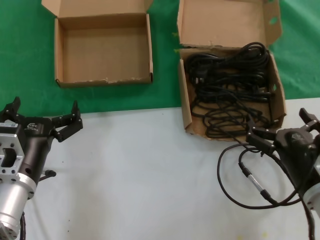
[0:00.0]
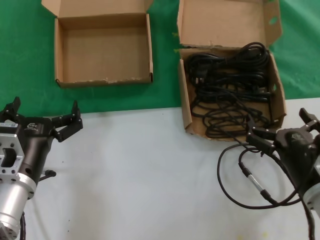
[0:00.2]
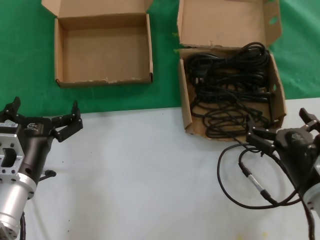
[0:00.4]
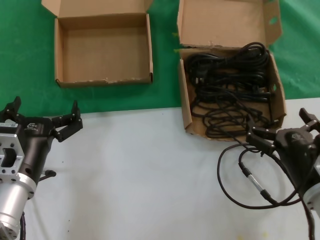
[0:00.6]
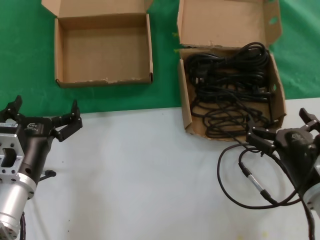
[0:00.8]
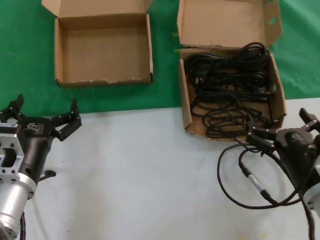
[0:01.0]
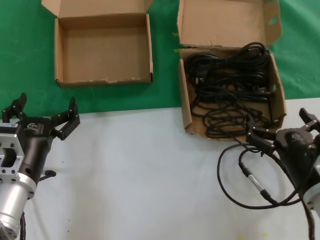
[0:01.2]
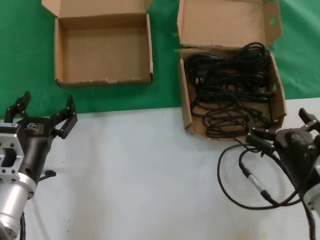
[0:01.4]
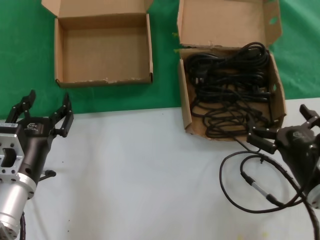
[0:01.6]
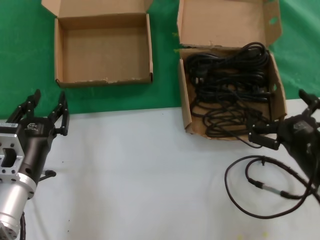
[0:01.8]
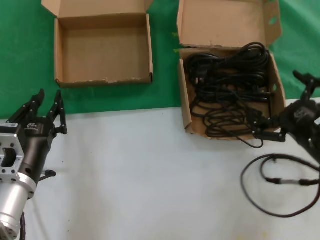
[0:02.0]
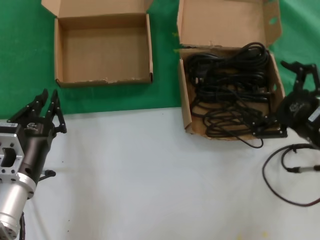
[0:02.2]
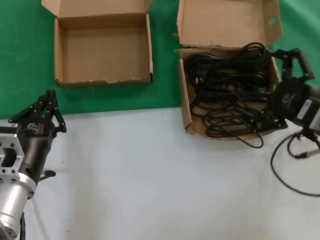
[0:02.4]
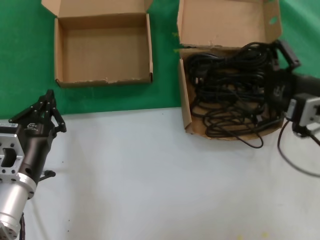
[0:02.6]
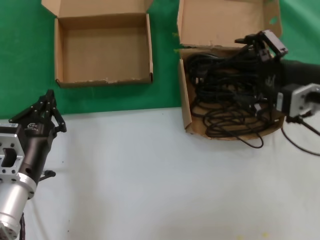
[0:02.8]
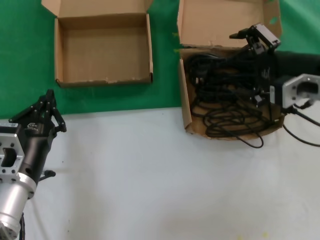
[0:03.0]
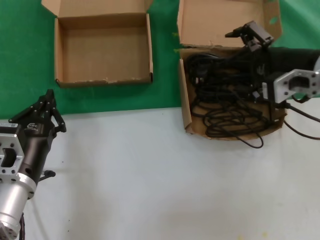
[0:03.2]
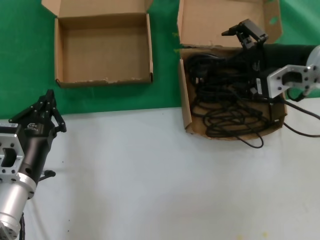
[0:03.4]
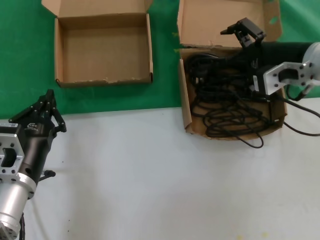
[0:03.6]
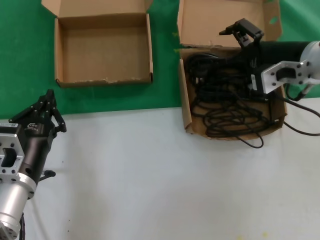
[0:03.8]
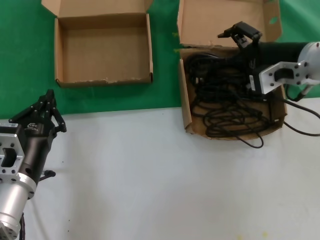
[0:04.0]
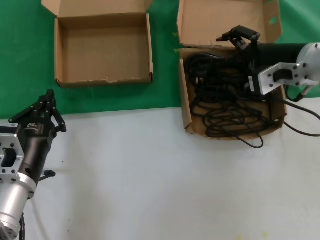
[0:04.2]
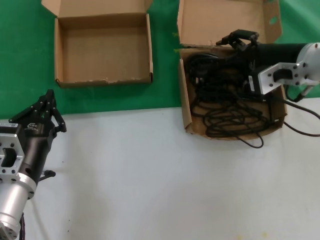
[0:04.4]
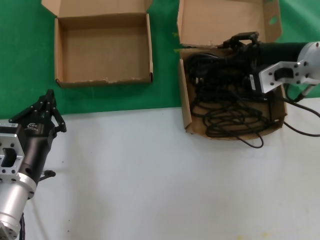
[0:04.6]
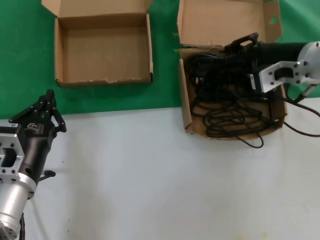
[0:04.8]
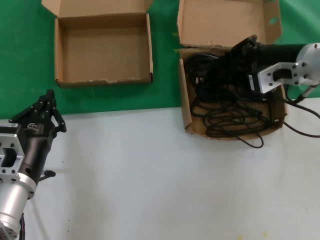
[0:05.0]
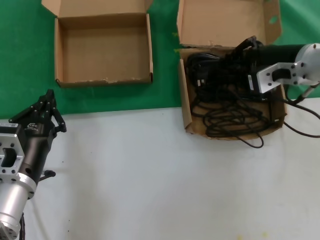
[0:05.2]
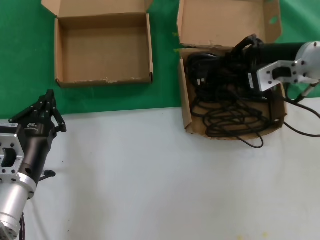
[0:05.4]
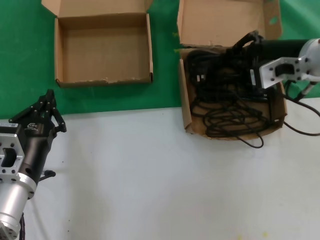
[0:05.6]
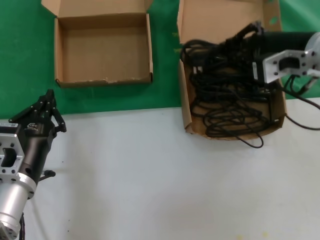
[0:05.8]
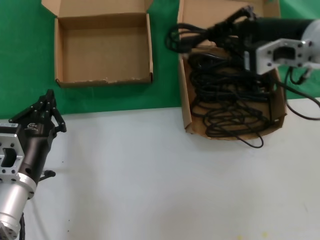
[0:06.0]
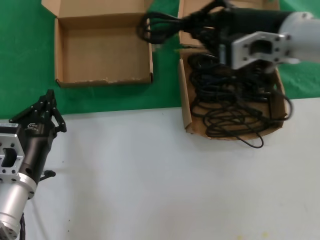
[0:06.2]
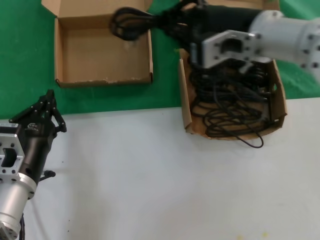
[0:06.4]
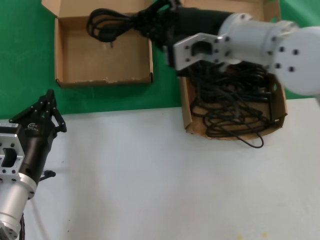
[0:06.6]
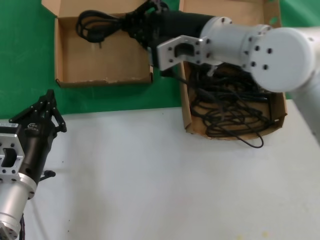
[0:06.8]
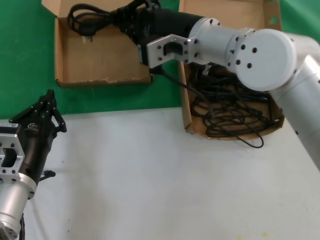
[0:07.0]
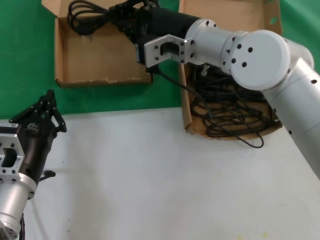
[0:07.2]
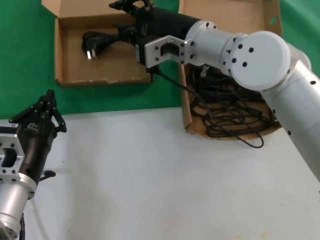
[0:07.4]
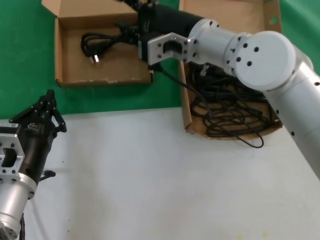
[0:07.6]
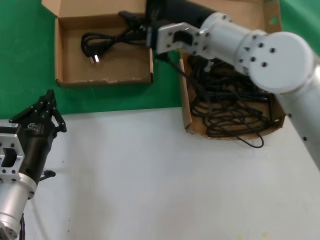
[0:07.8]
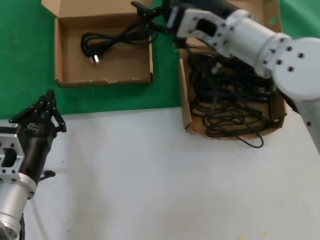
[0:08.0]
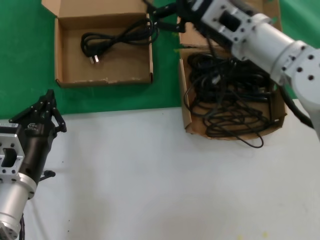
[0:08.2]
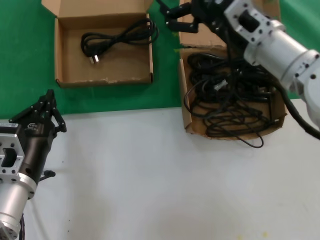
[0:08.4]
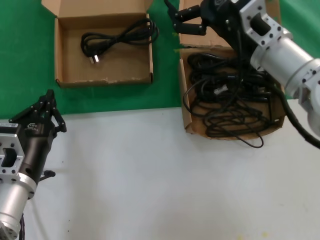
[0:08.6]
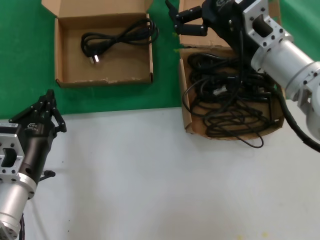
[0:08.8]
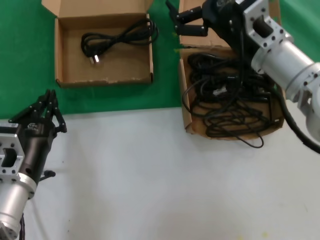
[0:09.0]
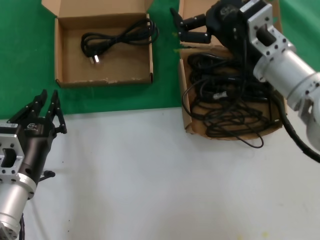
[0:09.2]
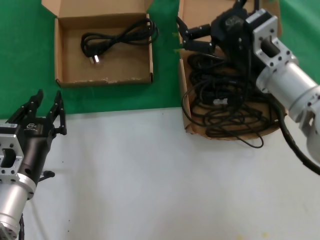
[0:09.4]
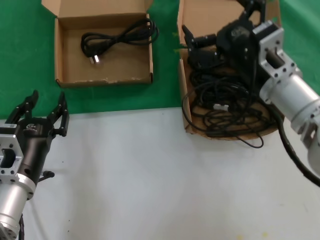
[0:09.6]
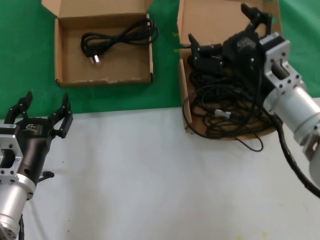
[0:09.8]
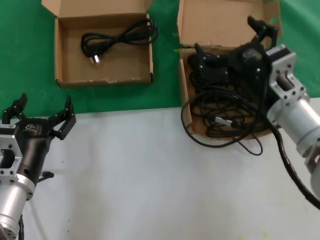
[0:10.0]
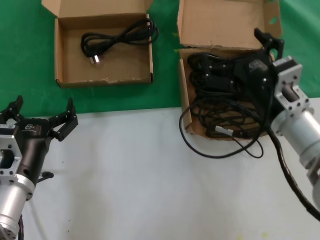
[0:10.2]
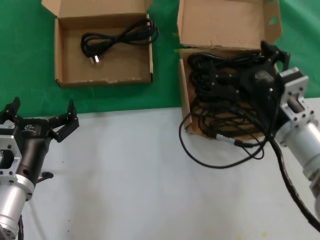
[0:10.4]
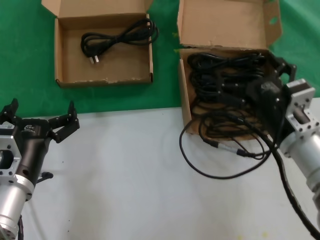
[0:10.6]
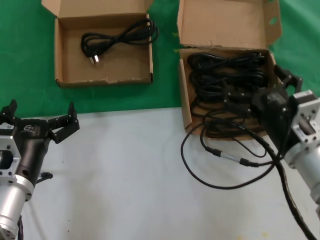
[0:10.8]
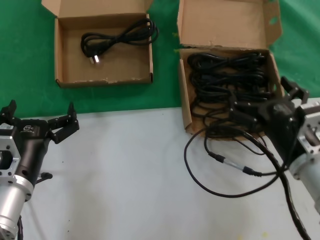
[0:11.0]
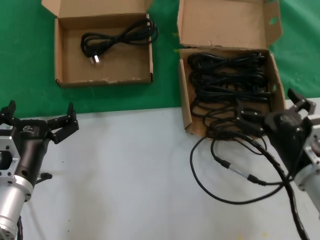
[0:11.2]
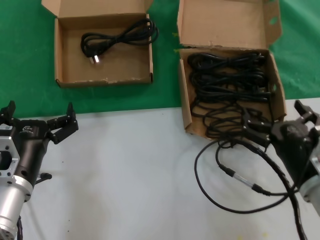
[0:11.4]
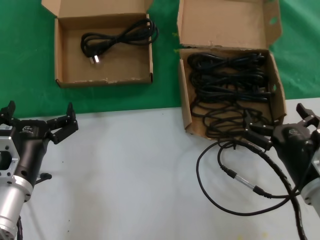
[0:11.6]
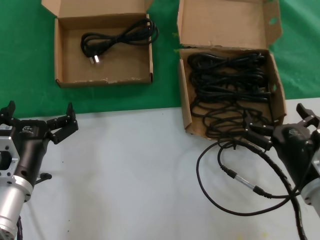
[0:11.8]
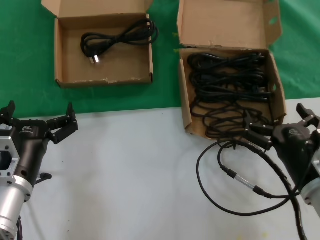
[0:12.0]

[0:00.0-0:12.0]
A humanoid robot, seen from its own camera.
Task of the whole recording: take the parts from the box containing them and put them into an empty box.
Step, 0:00.0 to 0:05.2: Grasp the data cable.
Step, 0:05.4 to 0:07.2: Place the data cable in the another box.
0:00.0 to 0:01.6: Neither hand changes place.
0:01.6 to 0:03.0: The right hand moves upward and forward, some 25 cm.
0:03.0 to 0:04.4: The right hand travels forward by about 5 cm.
0:04.4 to 0:06.0: The right hand travels upward by approximately 5 cm.
0:06.0 to 0:07.6: The right hand is displaced to the left by approximately 15 cm.
0:07.6 to 0:09.0: The right hand heads to the right, covering approximately 10 cm.
0:09.0 to 0:10.4: The right hand shifts approximately 15 cm downward and backward.
0:10.4 to 0:12.0: The right hand is displaced backward and downward by approximately 10 cm.

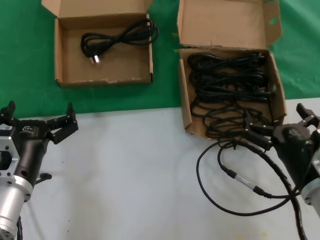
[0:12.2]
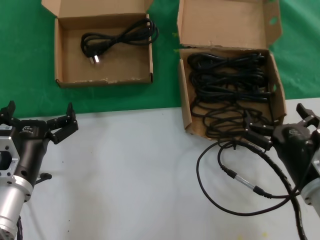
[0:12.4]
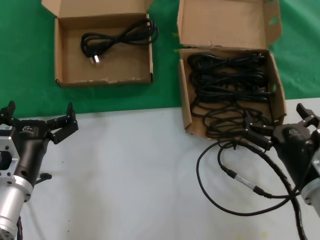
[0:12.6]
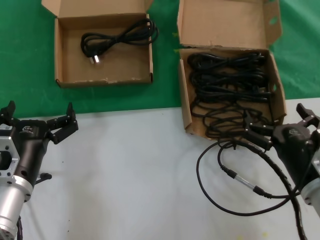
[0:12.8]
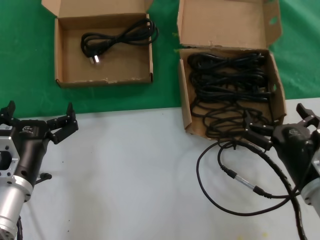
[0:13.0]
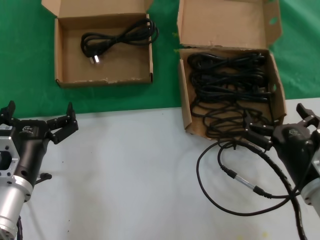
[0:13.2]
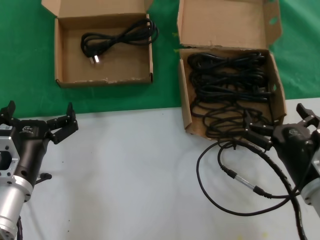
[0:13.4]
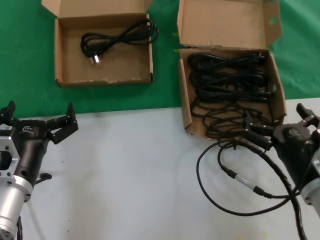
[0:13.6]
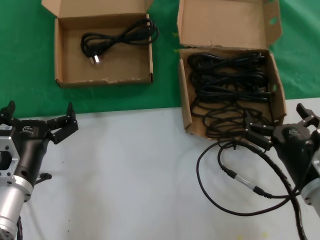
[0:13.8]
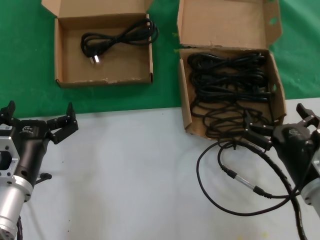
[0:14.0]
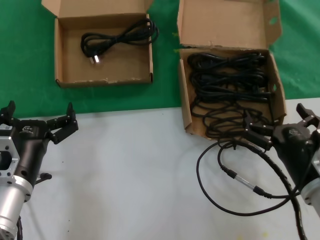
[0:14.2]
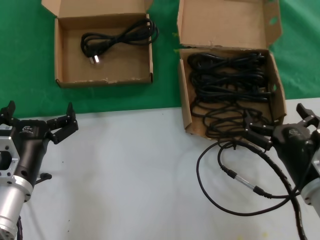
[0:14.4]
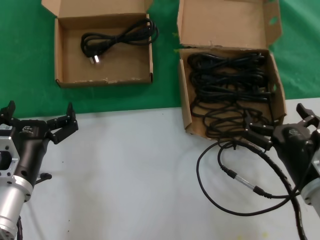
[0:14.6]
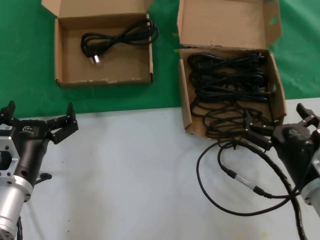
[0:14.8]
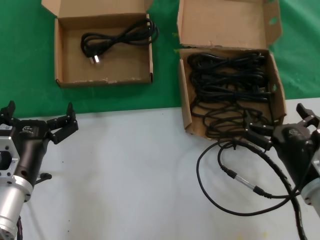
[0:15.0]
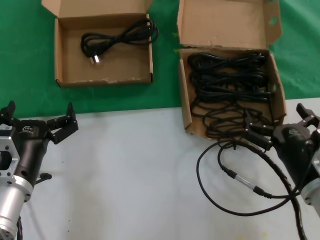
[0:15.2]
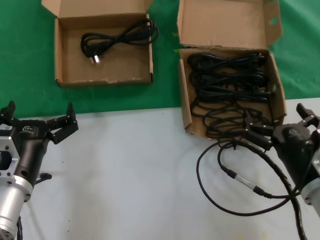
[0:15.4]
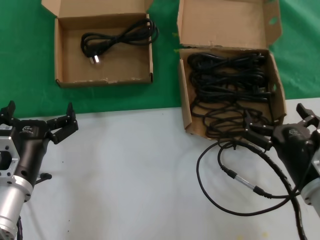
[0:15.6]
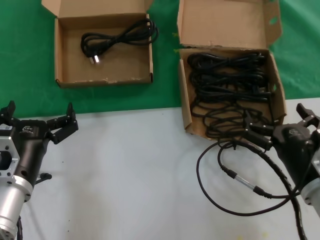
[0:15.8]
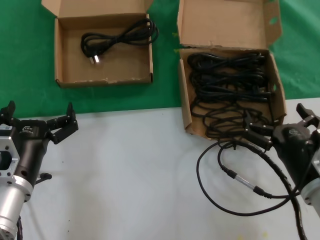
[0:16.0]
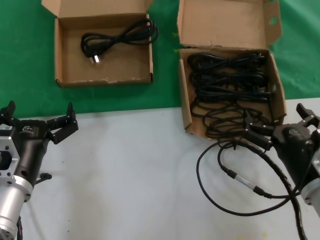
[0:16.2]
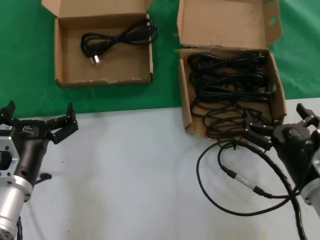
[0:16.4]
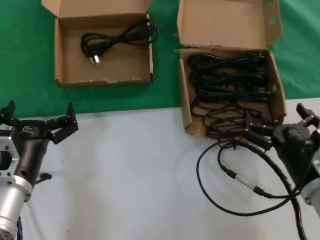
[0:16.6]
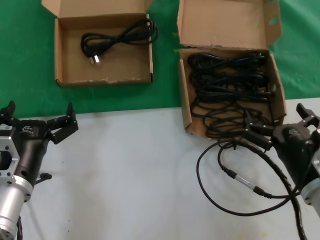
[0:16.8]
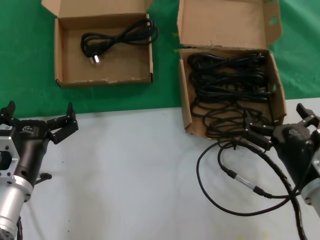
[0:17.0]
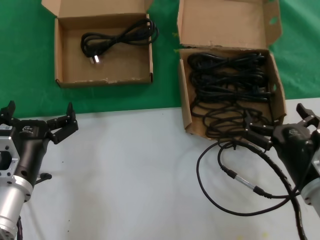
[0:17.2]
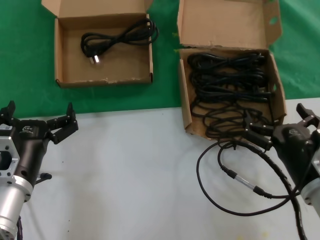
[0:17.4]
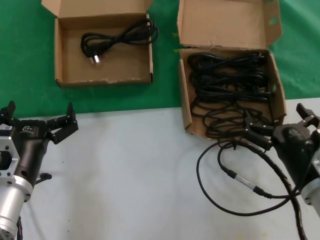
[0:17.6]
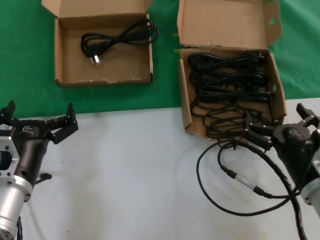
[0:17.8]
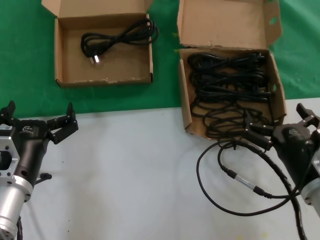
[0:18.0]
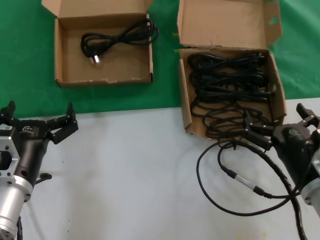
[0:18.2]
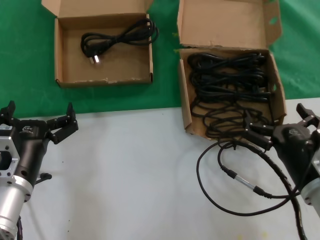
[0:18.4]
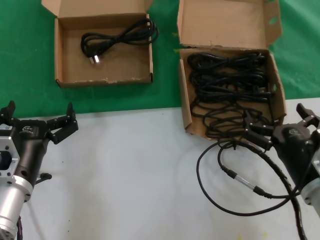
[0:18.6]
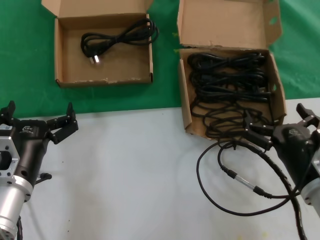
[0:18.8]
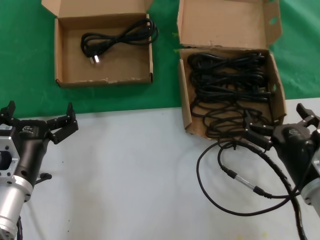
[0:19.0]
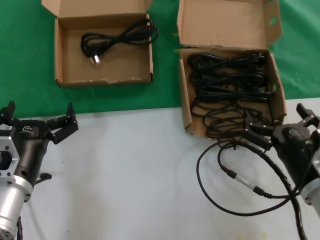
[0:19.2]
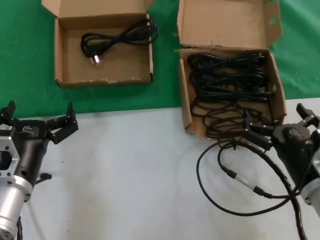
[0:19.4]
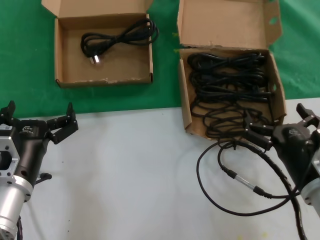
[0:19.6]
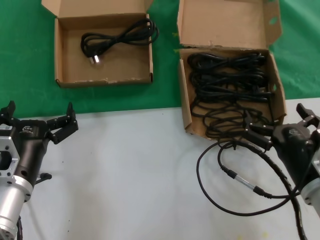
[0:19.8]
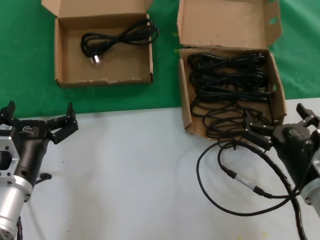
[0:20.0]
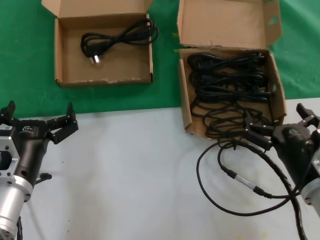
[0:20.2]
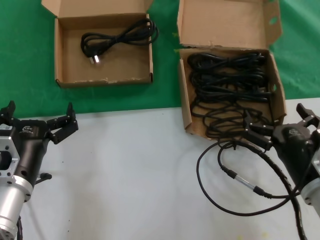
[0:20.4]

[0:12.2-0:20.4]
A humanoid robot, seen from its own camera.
Task of the whole recording: take the parts from the box containing them and put them into an empty box.
0:12.2 to 0:20.4: Neither hand changes place.

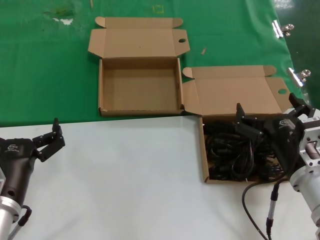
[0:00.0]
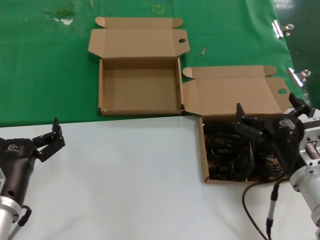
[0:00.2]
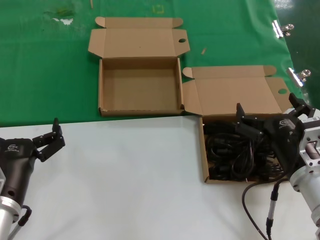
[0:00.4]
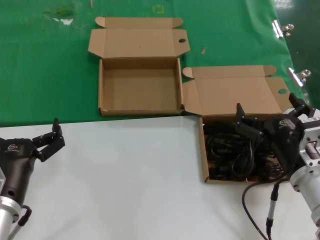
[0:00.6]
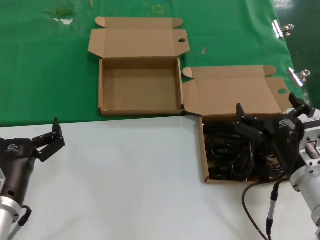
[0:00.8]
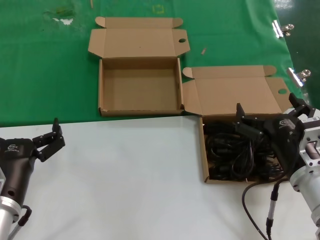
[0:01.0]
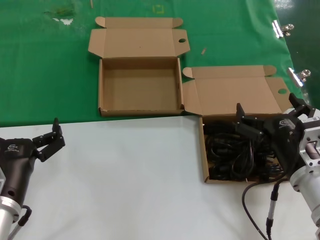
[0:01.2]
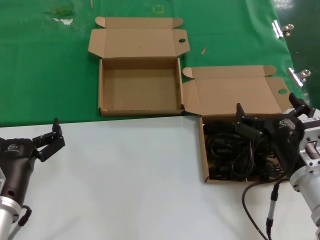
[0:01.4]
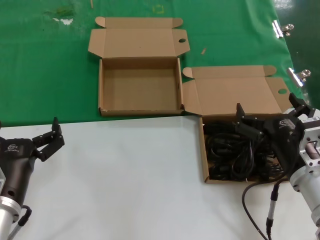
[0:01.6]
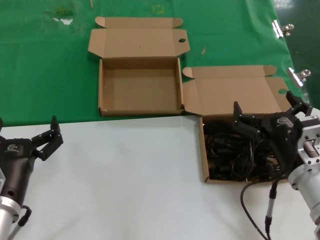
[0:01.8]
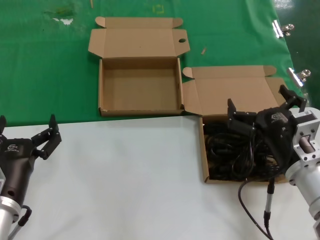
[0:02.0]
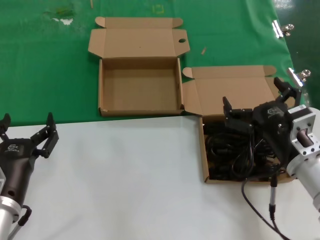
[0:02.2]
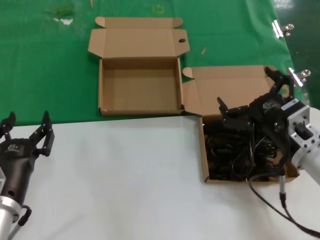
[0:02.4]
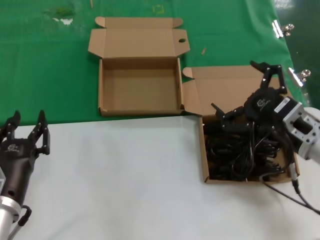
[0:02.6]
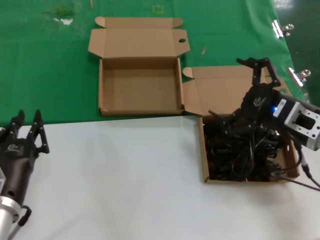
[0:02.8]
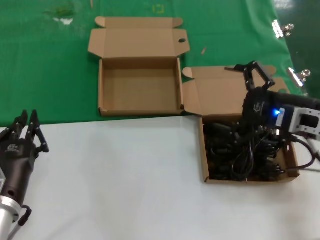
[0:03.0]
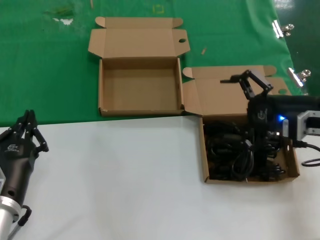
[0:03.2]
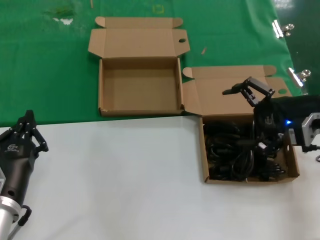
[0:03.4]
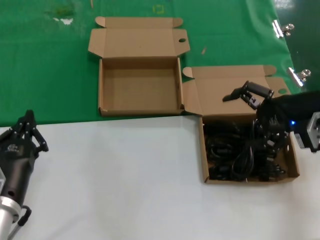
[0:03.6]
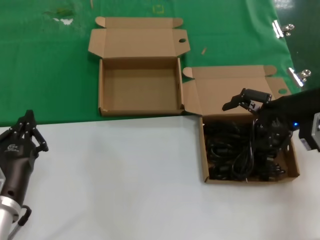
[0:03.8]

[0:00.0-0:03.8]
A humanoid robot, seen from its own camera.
Task of the whole recording: take the parts from the box containing them and put them into an empty box.
0:00.0 to 0:01.2: Both hands stay about where they are.
0:01.2 to 0:02.6: The right hand ends up about 10 cm from where it was.
0:02.6 to 0:03.8: The right hand travels upward, forward and to the right by some 15 cm.
